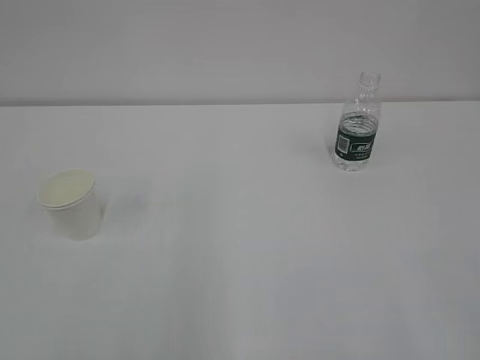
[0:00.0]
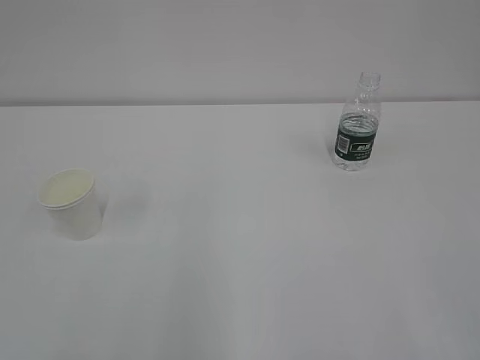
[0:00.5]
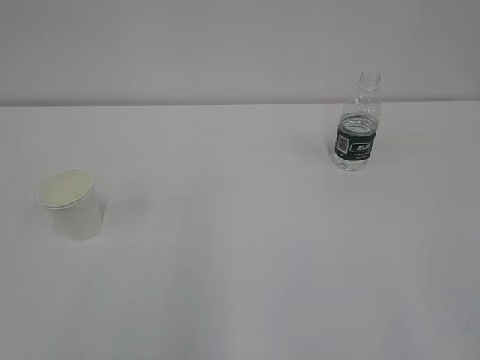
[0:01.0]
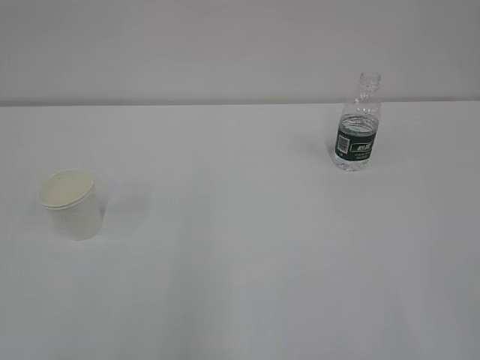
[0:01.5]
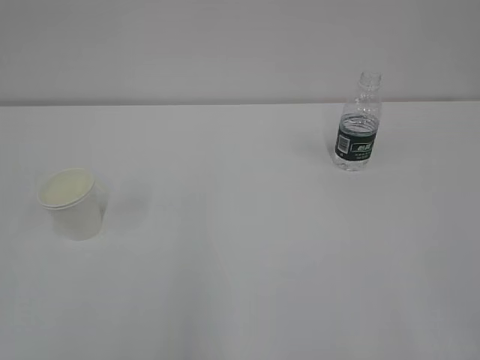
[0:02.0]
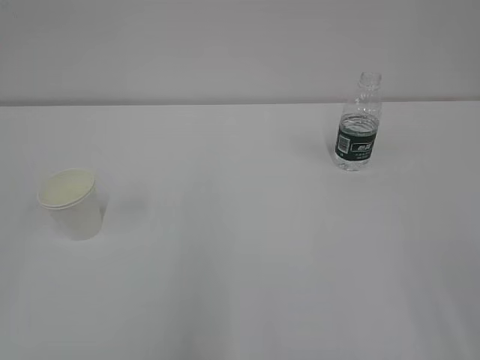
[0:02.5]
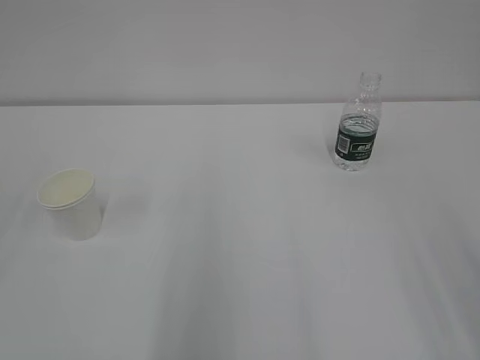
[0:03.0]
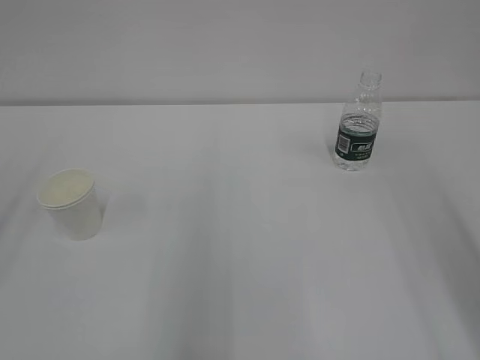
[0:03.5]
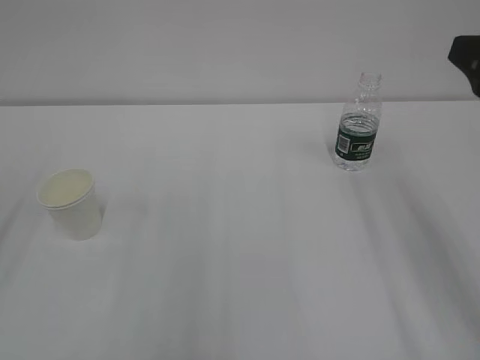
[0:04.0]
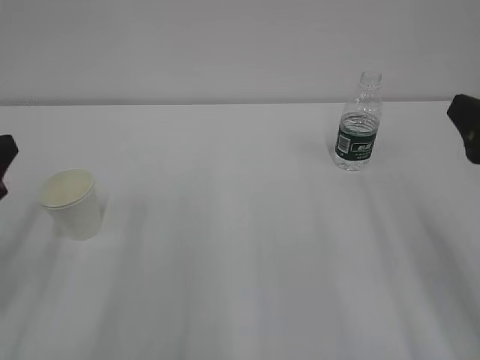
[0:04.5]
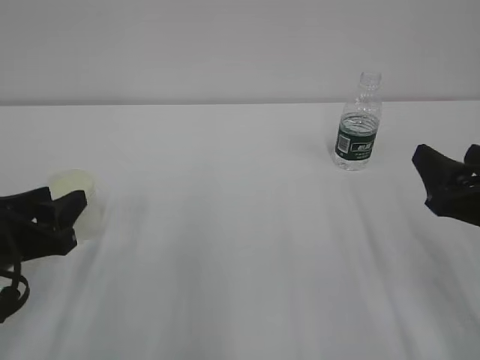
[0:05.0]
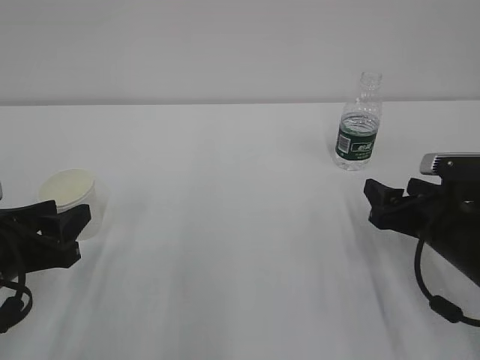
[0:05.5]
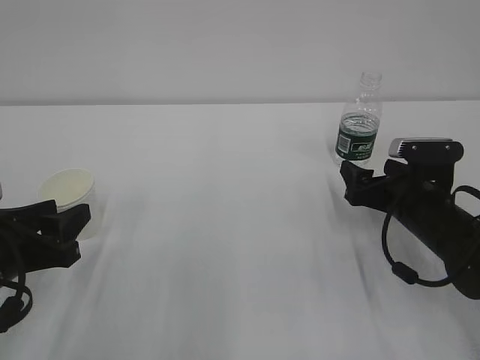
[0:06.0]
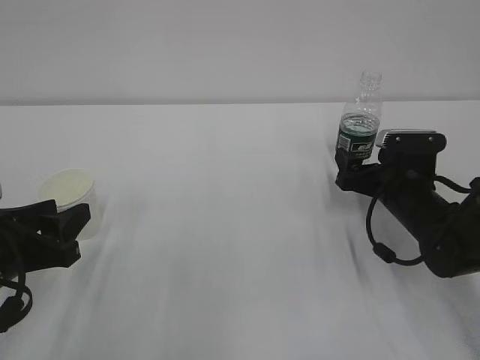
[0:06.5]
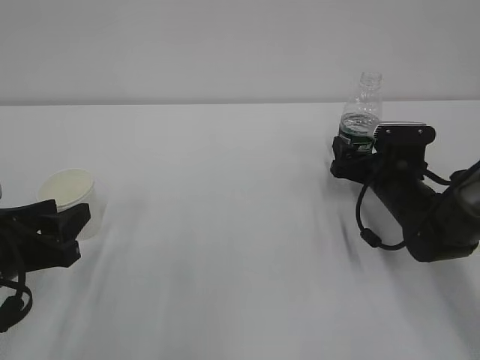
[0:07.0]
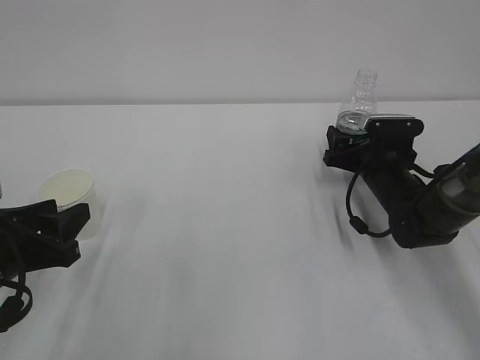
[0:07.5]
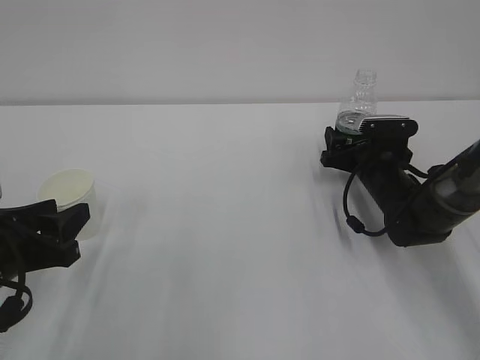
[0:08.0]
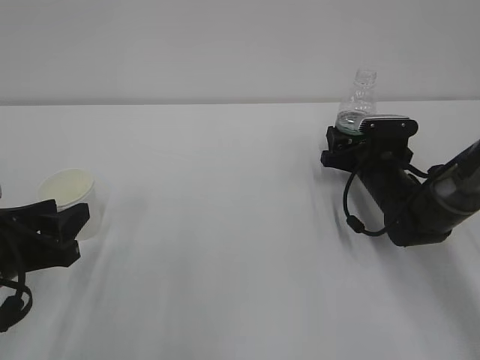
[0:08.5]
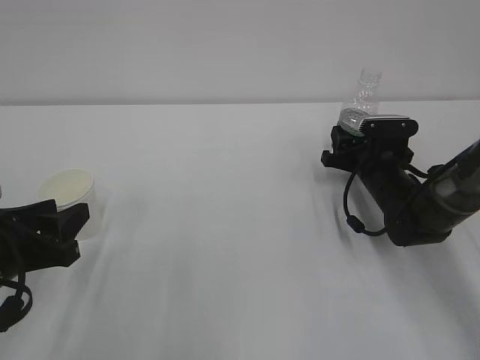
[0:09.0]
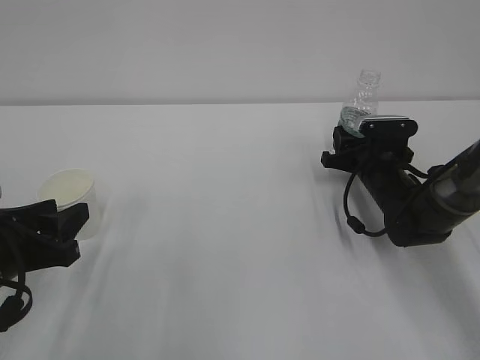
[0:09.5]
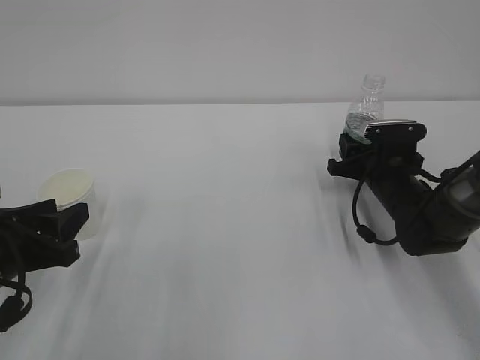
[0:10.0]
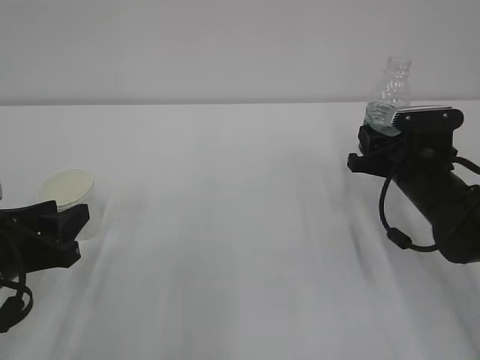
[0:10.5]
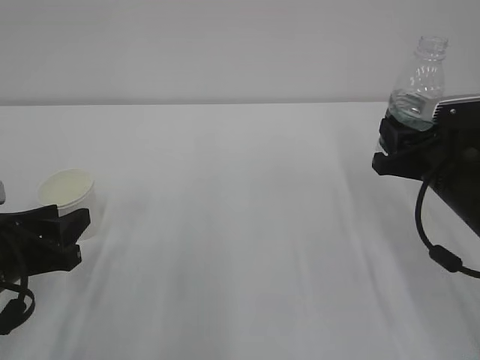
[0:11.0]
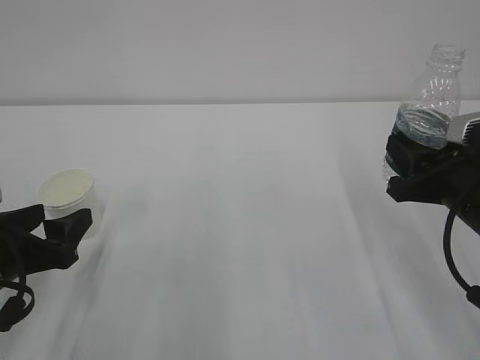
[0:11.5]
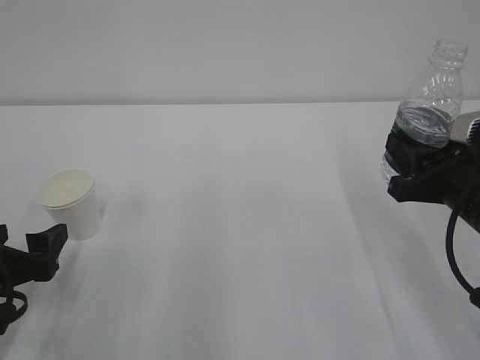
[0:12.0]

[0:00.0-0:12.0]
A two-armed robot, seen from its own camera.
0:02.0 to 0:04.0: The right gripper moves forward, some 25 cm.
0:04.0 to 0:06.0: The right gripper shifts about 25 cm downward and forward. The left gripper is displaced downward and to the right by some 20 cm.
0:06.0 to 0:08.0: The right gripper goes roughly 10 cm forward.
0:08.0 to 0:10.0: The right gripper closes its fingers.
0:10.0 to 0:12.0: The right gripper shifts roughly 20 cm backward and upward, while the left gripper opens up.

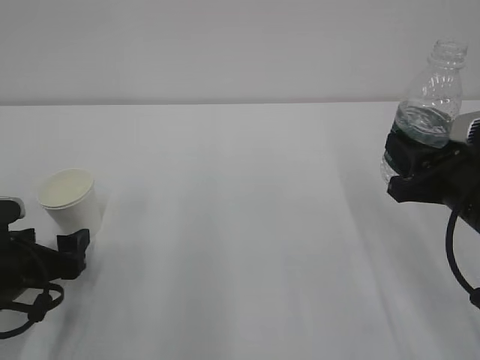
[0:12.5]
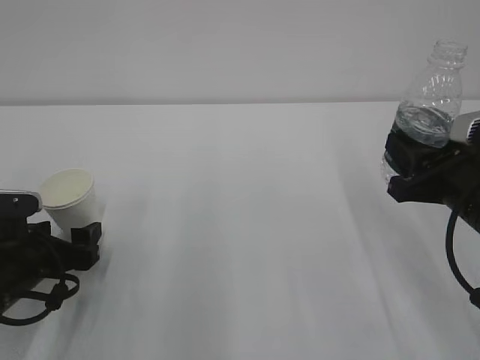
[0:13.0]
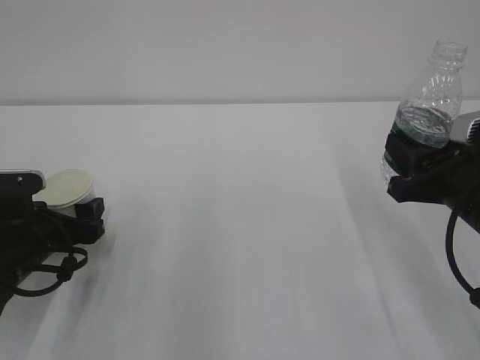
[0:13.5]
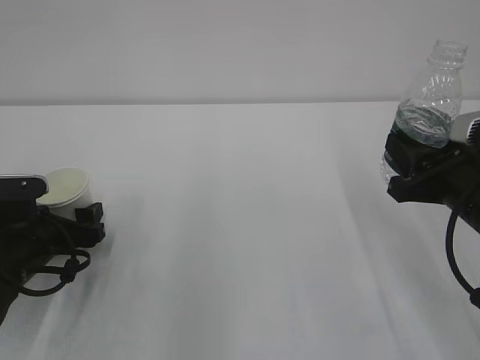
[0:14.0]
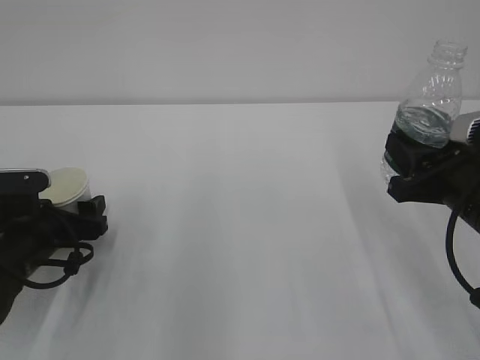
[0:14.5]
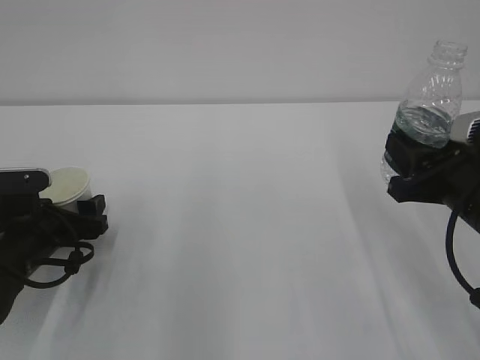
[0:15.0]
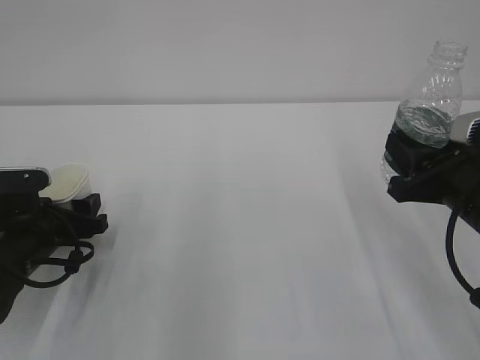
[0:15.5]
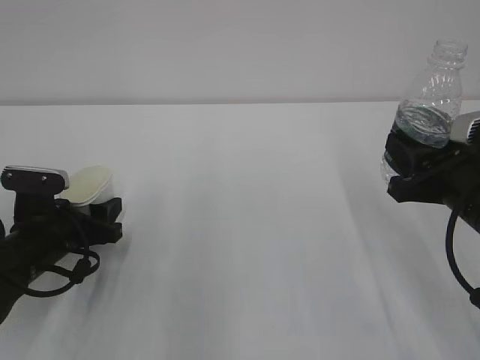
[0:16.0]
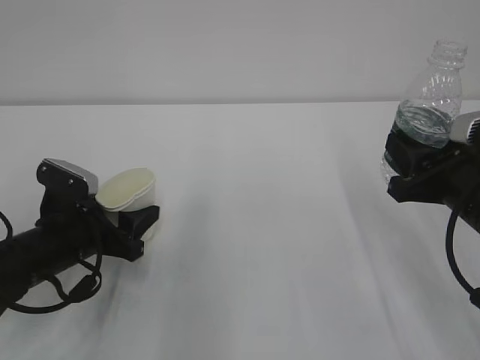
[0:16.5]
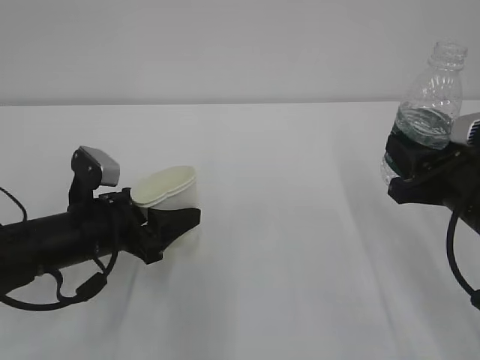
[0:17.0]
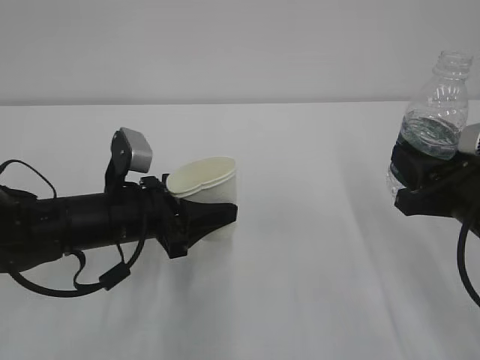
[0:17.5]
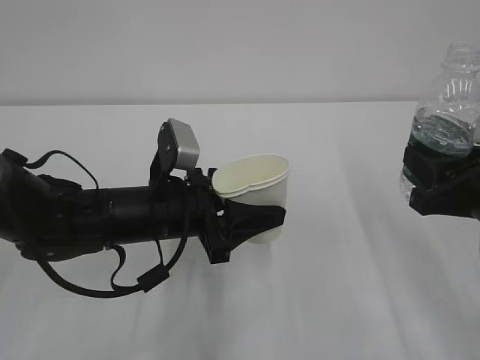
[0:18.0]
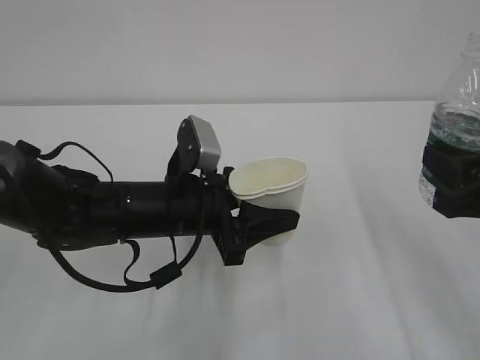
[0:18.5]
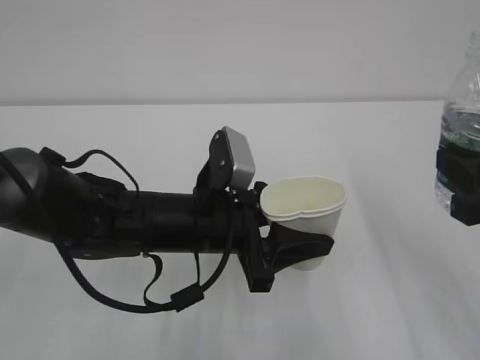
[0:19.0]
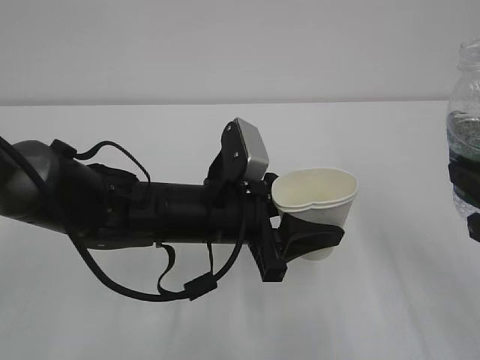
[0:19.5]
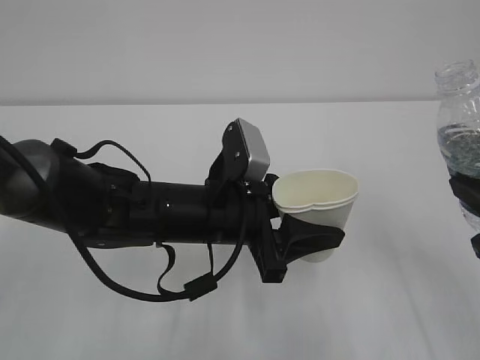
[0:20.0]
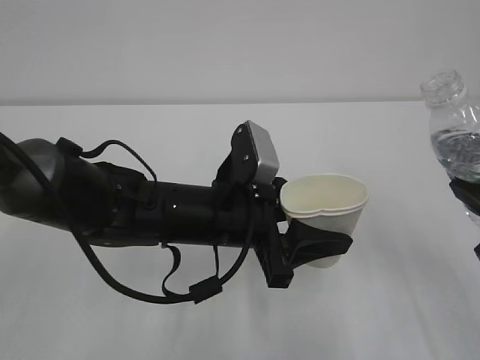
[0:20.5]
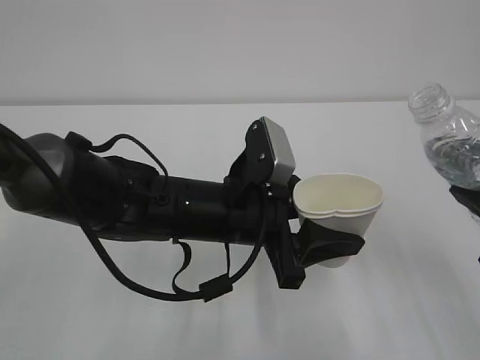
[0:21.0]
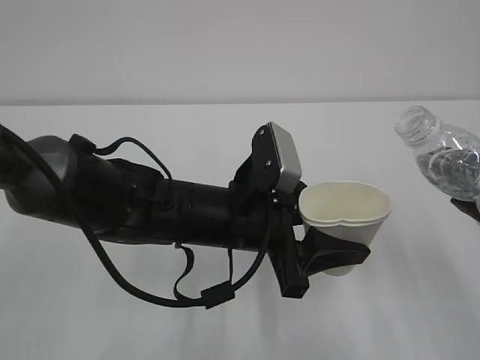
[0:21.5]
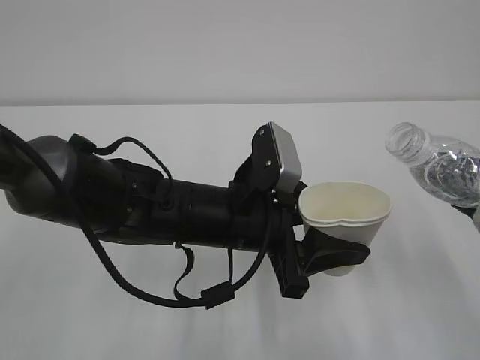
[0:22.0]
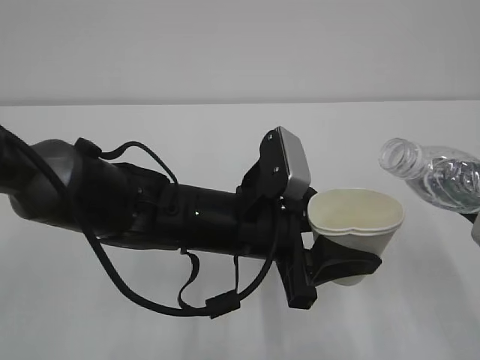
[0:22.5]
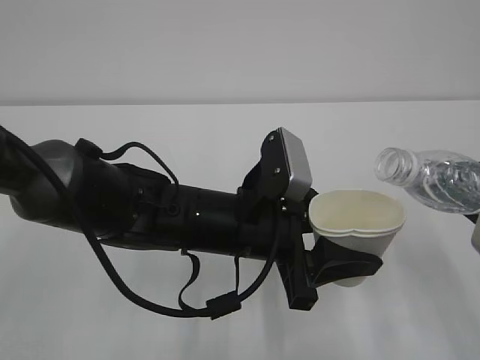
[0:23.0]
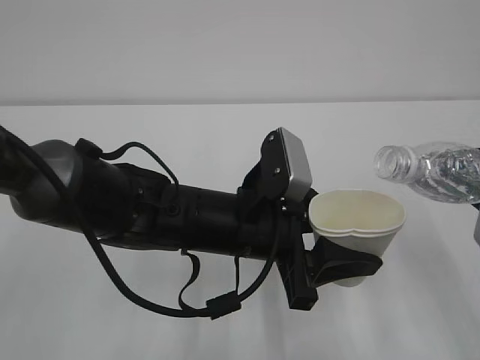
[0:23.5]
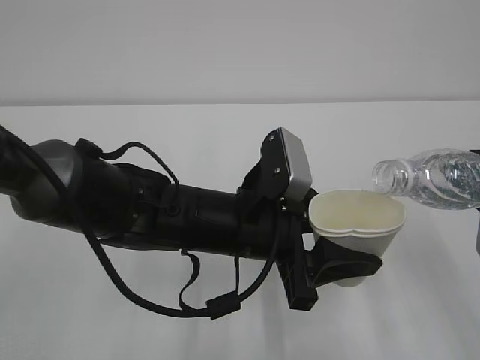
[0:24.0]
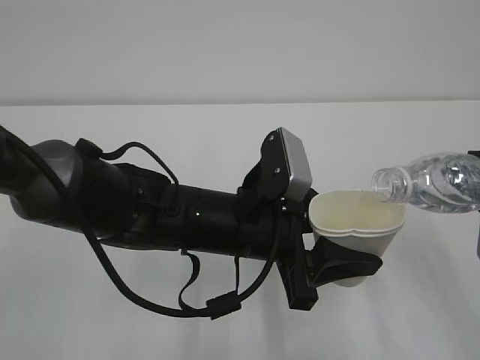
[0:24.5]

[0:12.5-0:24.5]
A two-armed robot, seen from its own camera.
0:12.5 to 0:14.5: The left gripper shifts roughly 5 cm forward.
0:14.5 to 0:16.5: The left gripper closes.
0:16.5 to 0:18.5: The left gripper is displaced to the right and upward by some 15 cm. Meanwhile the right gripper shifts roughly 5 cm backward.
0:18.5 to 0:20.5: The left gripper shifts by roughly 5 cm.

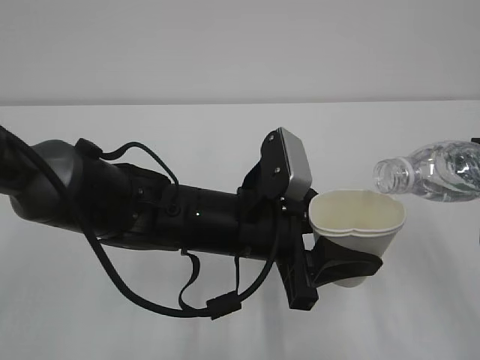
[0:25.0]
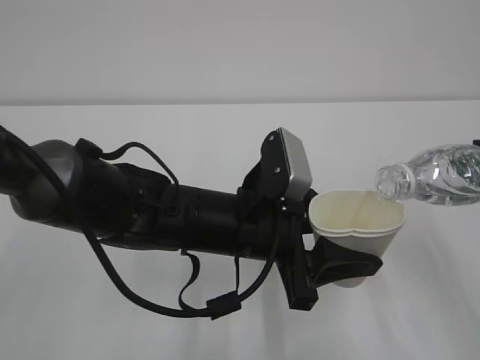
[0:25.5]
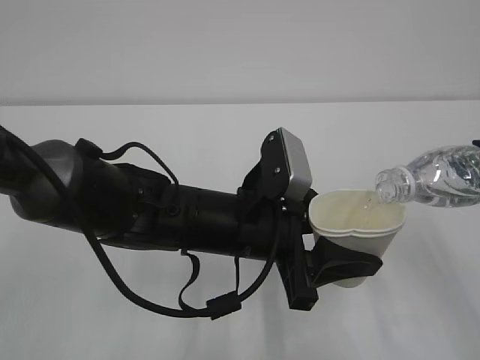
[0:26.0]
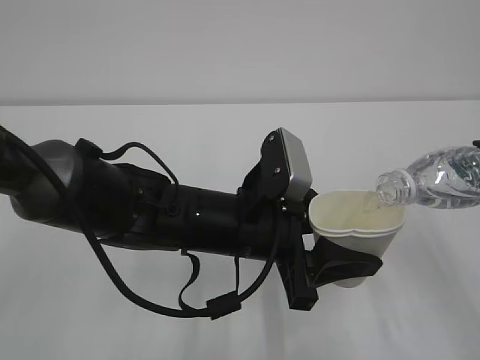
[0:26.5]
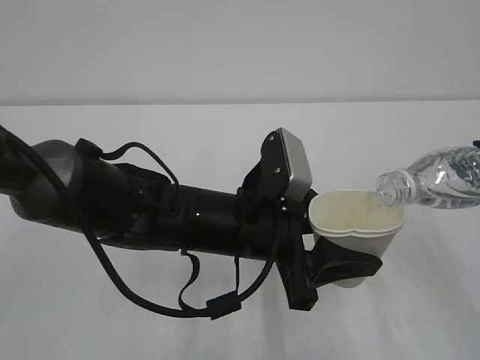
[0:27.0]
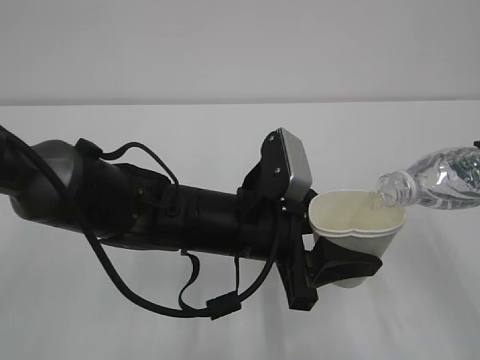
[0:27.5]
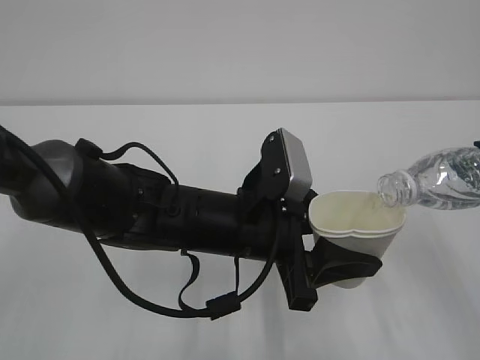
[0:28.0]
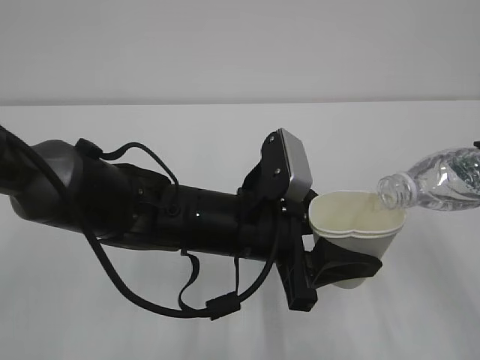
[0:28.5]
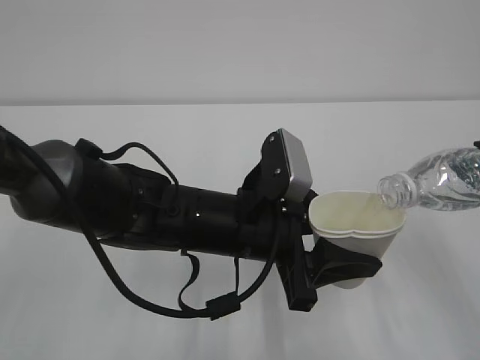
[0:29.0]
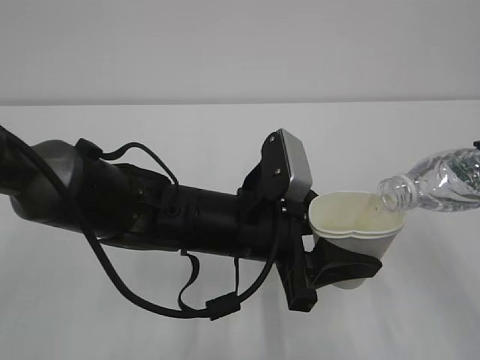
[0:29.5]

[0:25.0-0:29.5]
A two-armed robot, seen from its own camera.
0:25.0 to 0:27.0: There are only small adjustments of the grippers.
0:27.0 to 0:29.5: Both grippers stay put.
